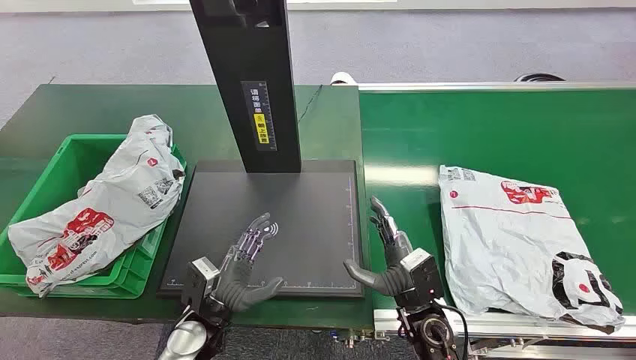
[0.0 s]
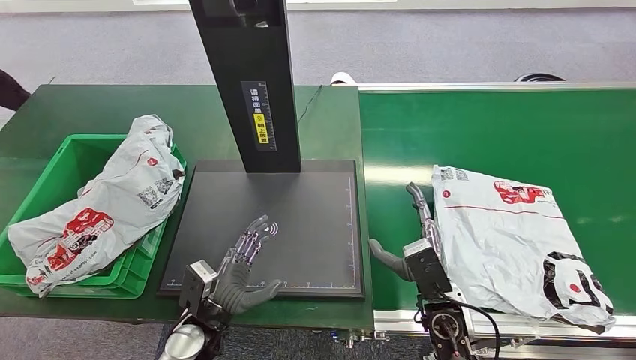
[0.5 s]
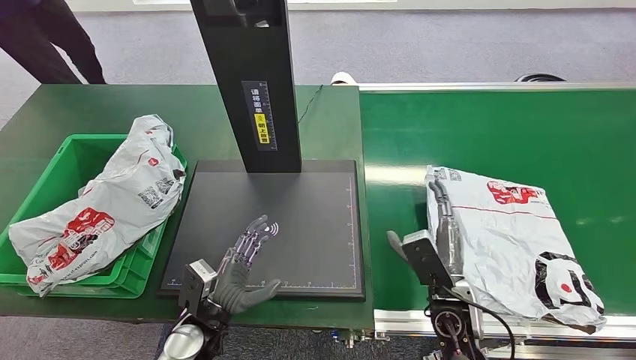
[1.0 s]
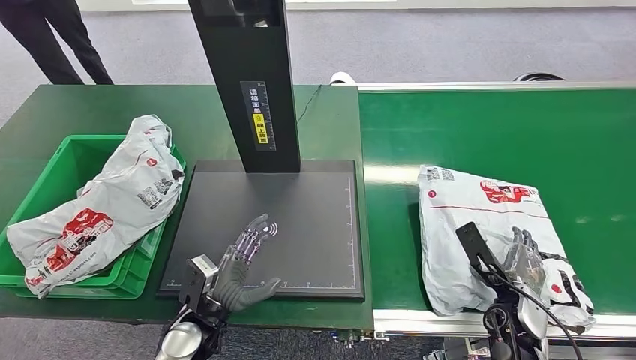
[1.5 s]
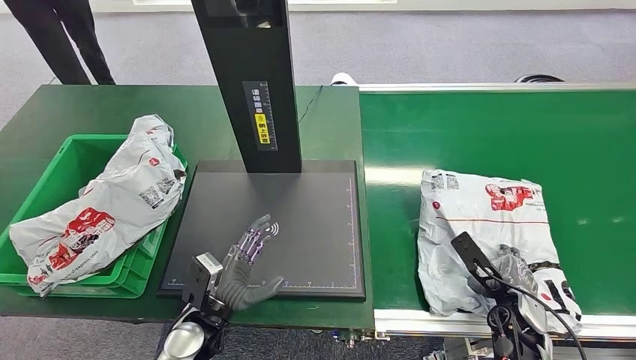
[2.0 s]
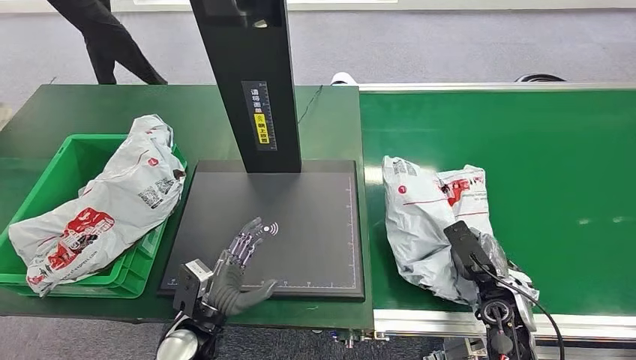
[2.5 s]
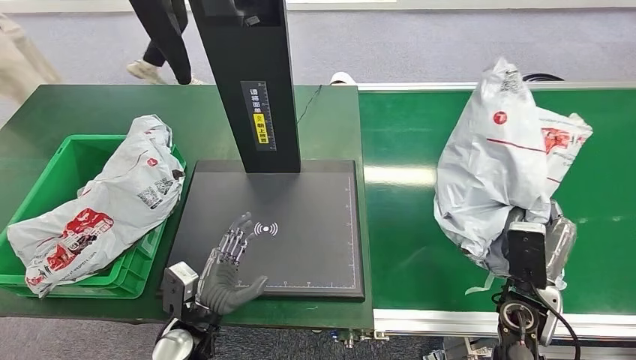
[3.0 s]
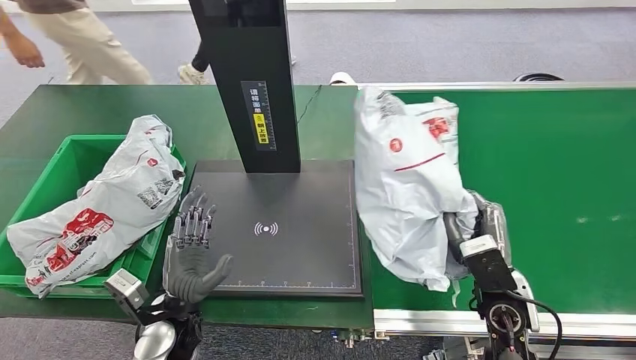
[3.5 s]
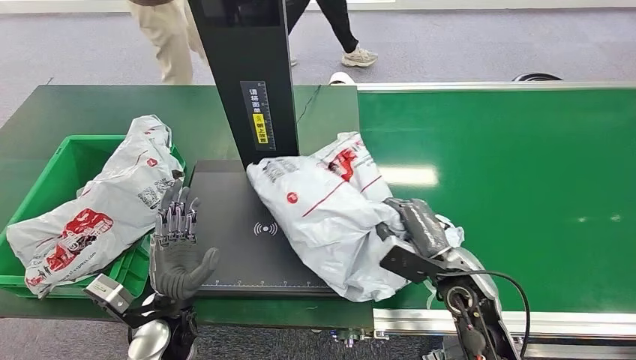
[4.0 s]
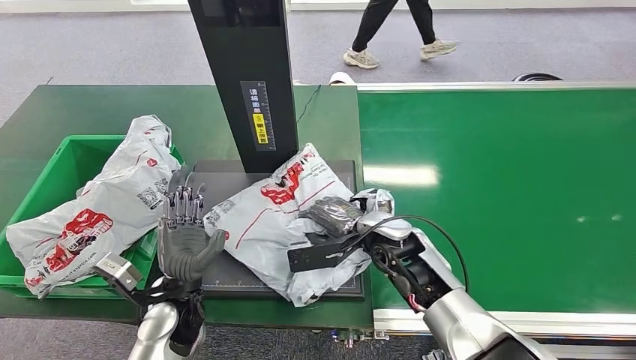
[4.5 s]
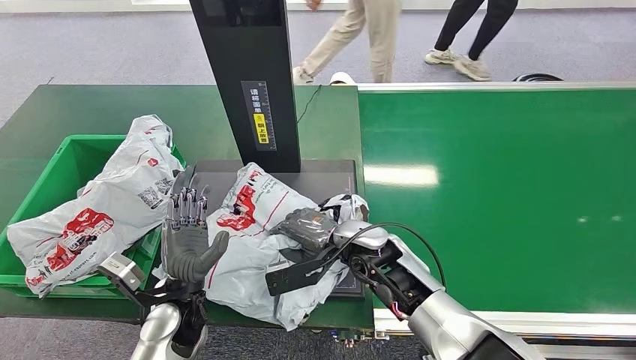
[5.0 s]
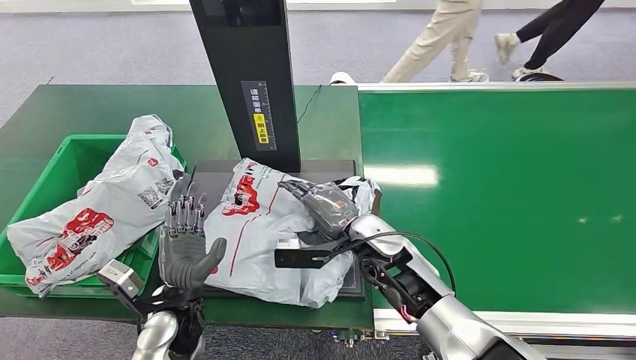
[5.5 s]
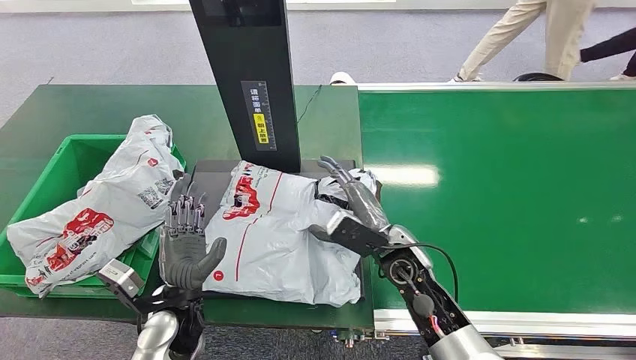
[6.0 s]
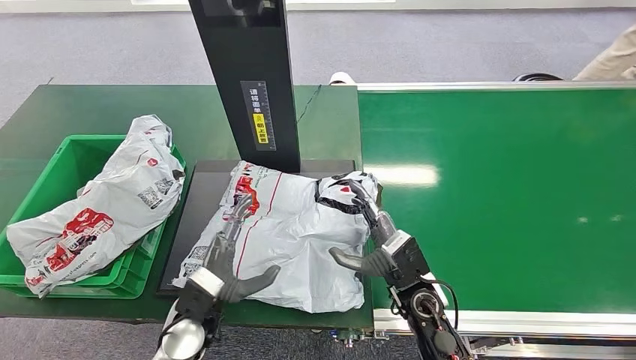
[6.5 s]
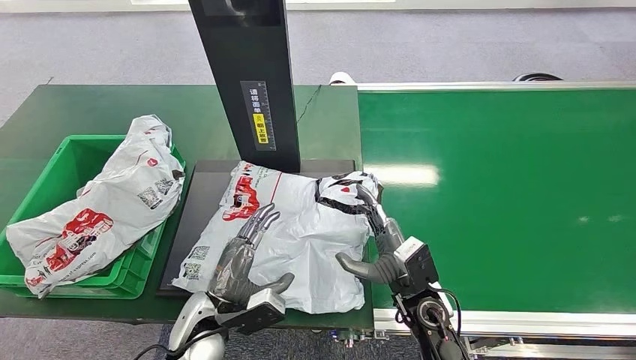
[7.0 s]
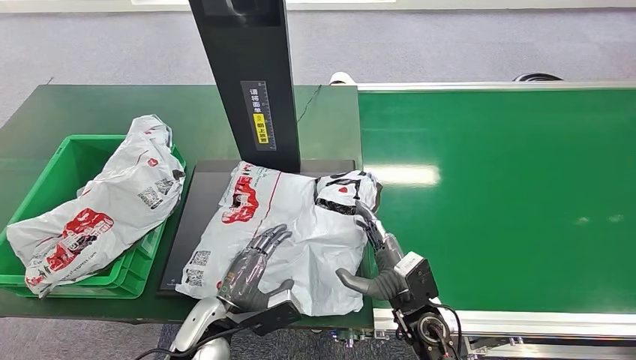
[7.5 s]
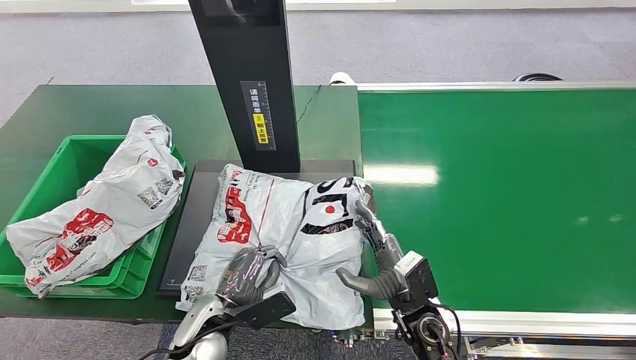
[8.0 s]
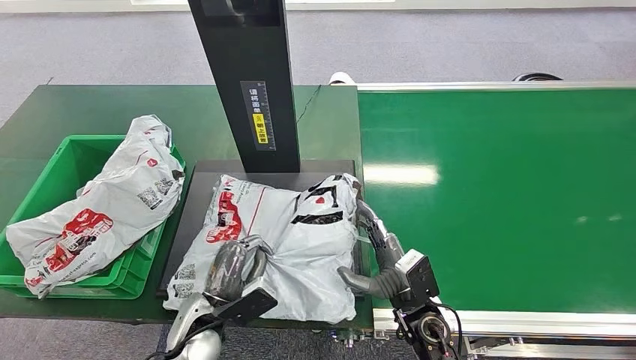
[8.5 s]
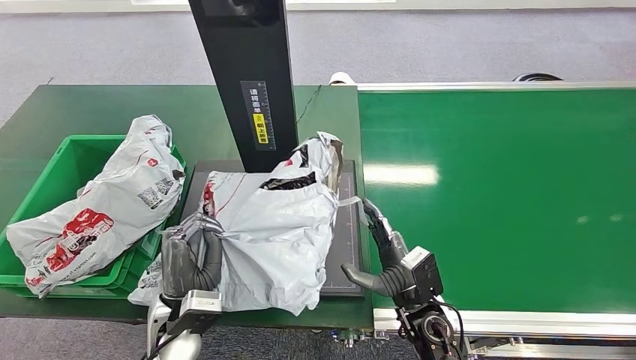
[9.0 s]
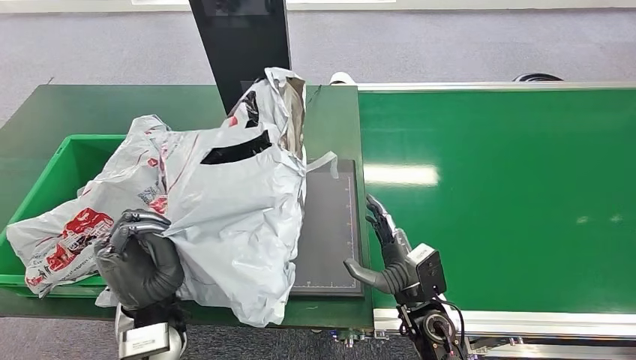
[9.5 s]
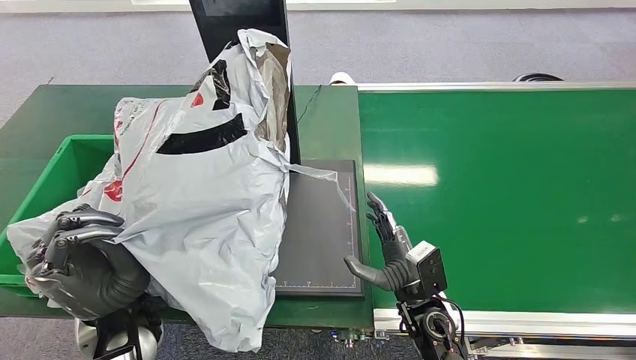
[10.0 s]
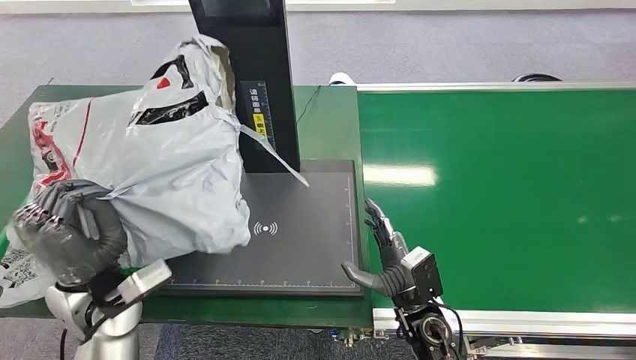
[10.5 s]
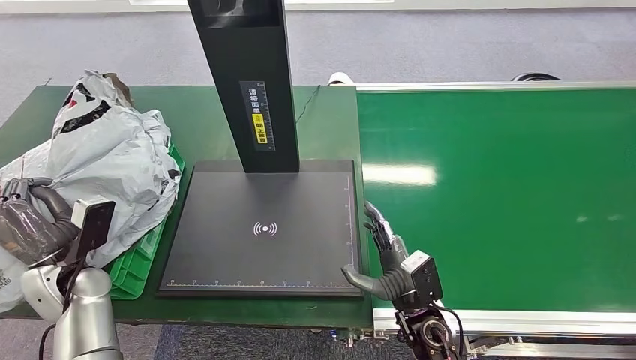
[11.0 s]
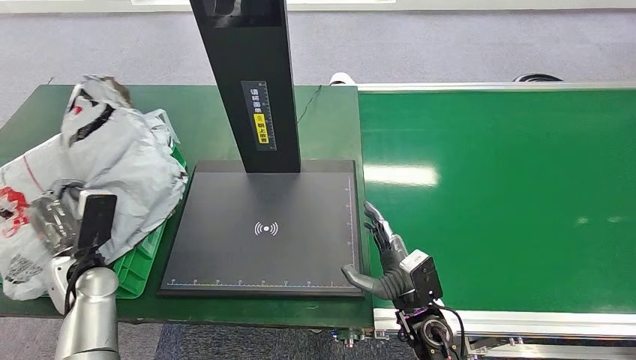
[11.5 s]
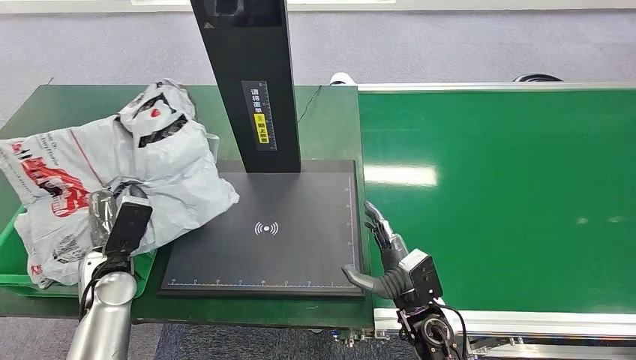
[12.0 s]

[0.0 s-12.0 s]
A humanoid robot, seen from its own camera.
Task of the whole recording: Weigh the package on the weighing device and place it in the left basket.
Step, 0.0 to 3.0 s: Pick up the package from the conveyor belt.
Step, 3.5 to 6.0 s: Place the package onto the inbound machine.
Step, 7.0 to 9.5 s: Pick up the package from the inbound machine.
6.0 to 8.0 s: The left hand shifts by about 5 cm; the right hand heads backward and downward, covering approximately 10 cm.

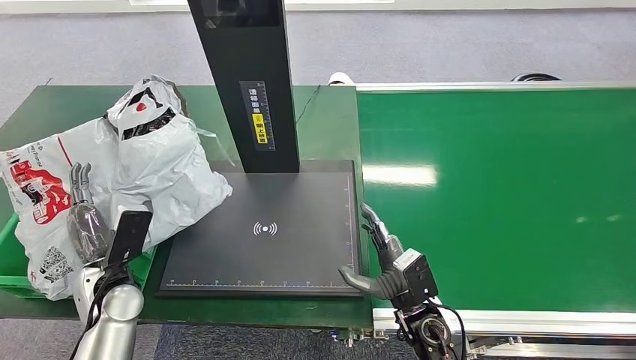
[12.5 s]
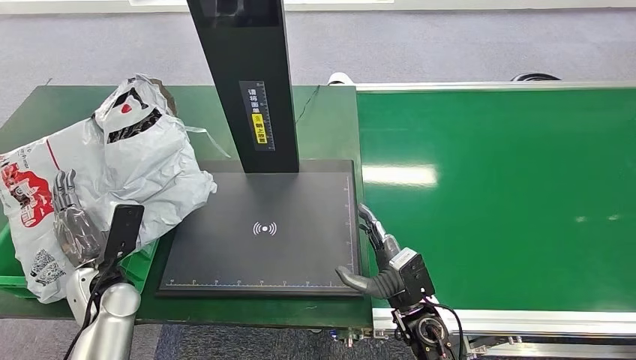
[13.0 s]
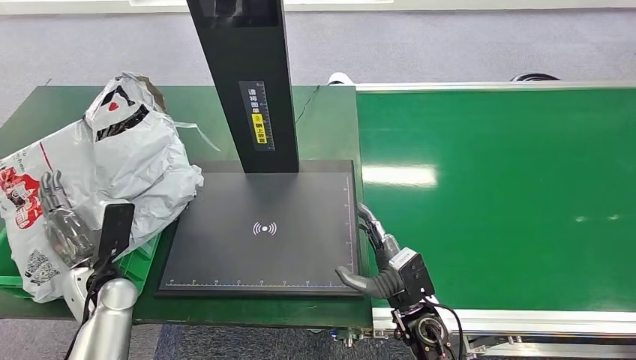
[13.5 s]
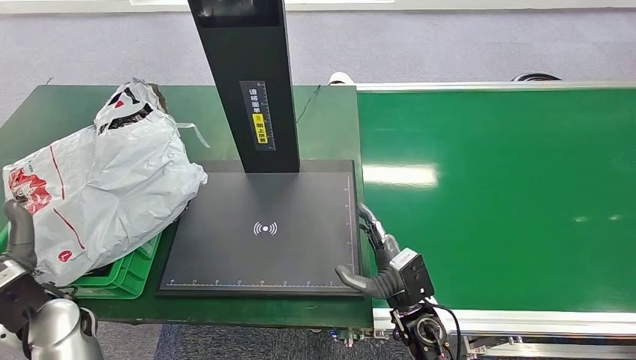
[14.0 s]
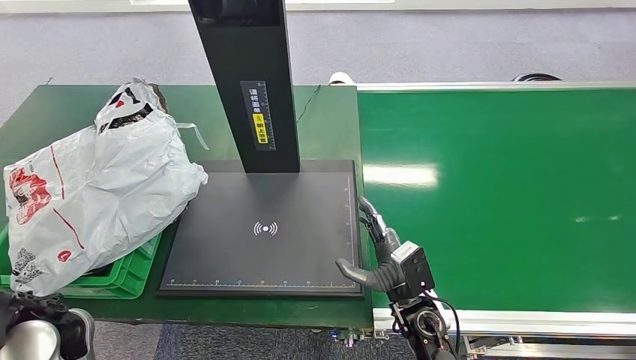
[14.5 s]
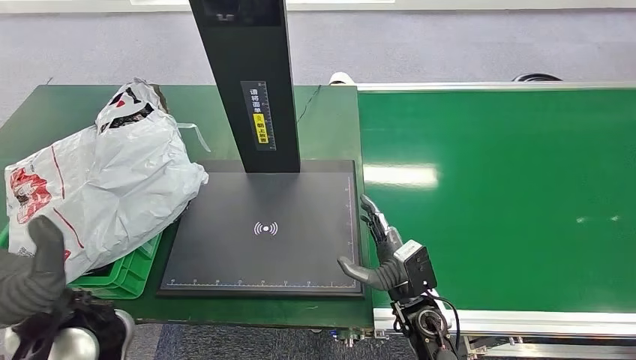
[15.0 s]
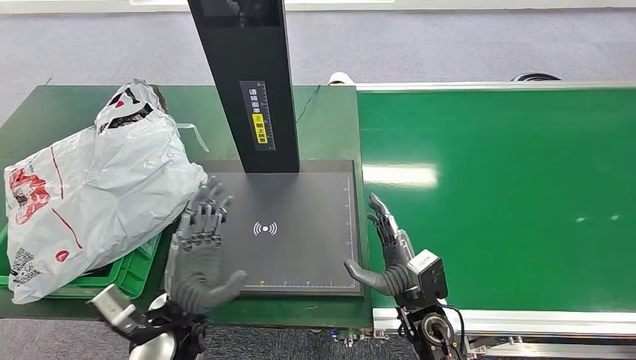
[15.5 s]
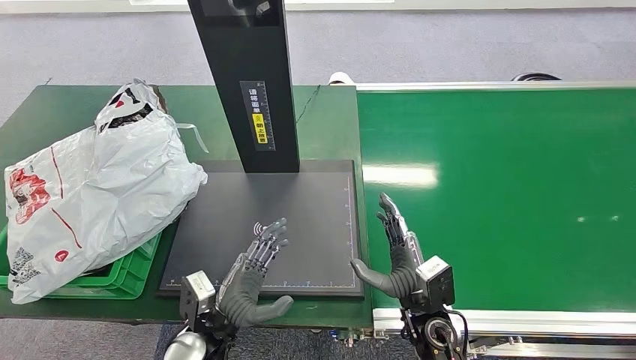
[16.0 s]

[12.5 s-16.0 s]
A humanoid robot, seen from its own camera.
Task of the whole recording: Weigh the package on the weighing device and place it in the left basket.
Step, 12.5 to 16.0 s: Place the package into the parcel locker.
12.5 to 14.5 s: The left hand is displaced upward and backward by roughly 15 cm.
14.5 to 16.0 s: The left hand shifts some 25 cm to the right and downward.
